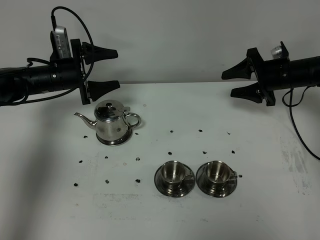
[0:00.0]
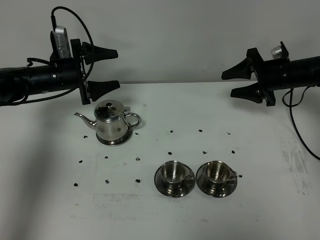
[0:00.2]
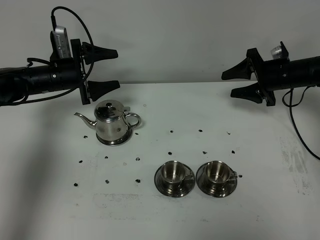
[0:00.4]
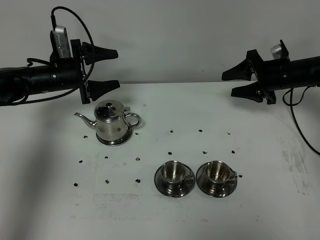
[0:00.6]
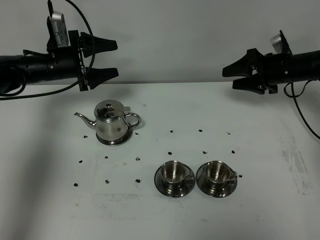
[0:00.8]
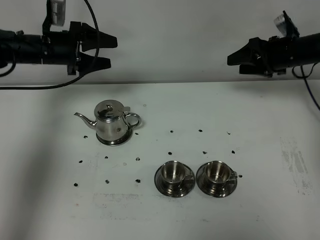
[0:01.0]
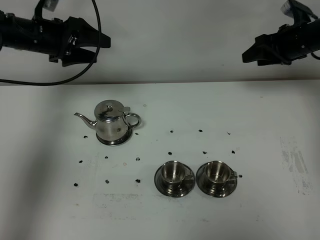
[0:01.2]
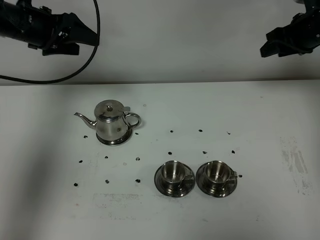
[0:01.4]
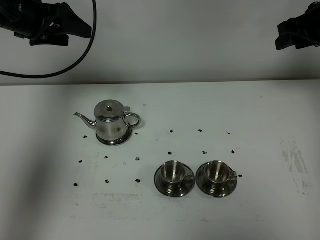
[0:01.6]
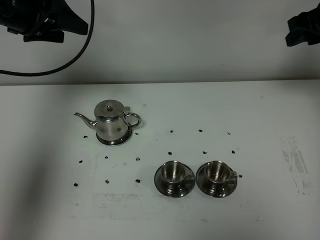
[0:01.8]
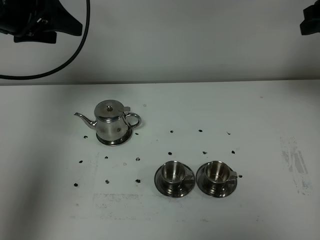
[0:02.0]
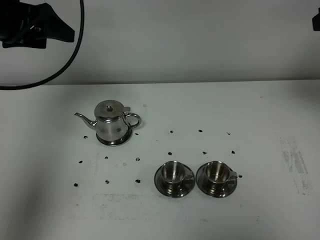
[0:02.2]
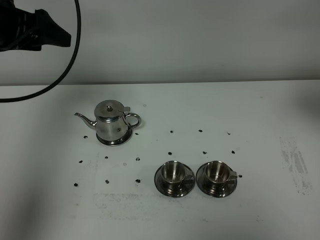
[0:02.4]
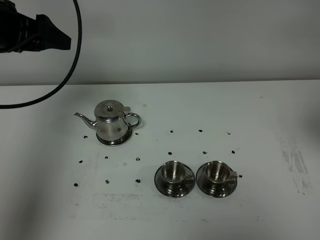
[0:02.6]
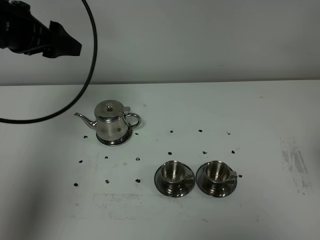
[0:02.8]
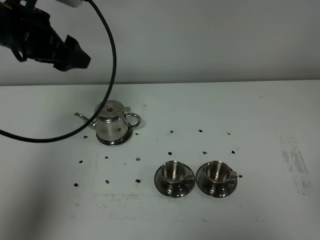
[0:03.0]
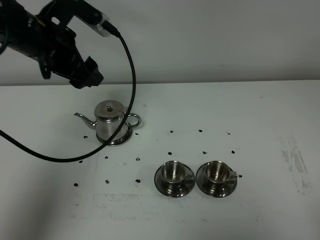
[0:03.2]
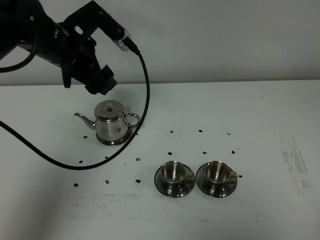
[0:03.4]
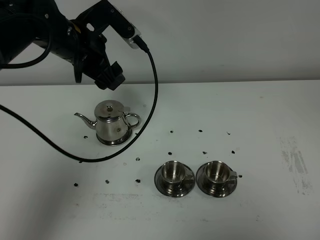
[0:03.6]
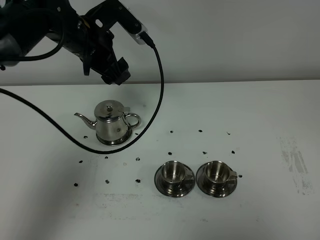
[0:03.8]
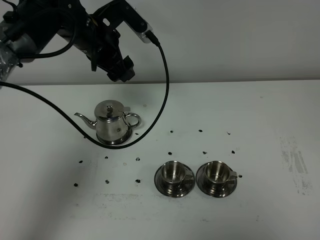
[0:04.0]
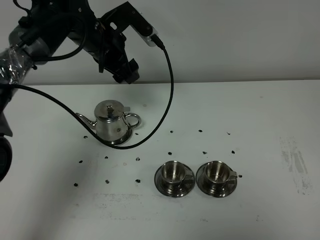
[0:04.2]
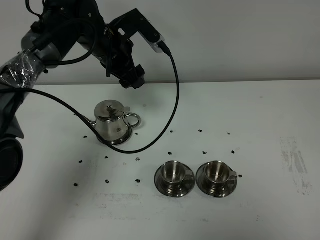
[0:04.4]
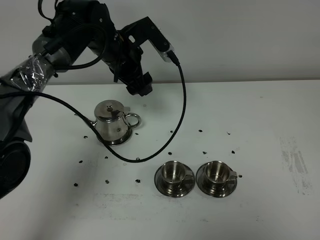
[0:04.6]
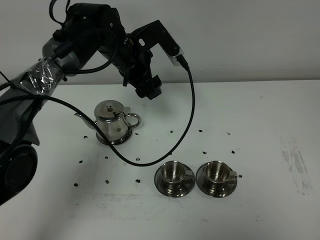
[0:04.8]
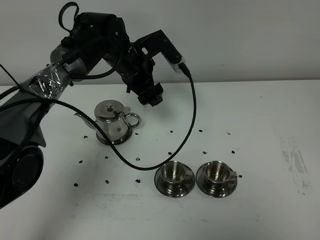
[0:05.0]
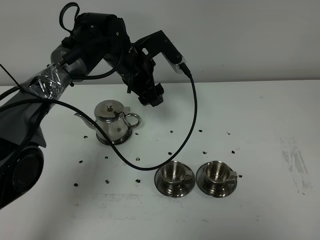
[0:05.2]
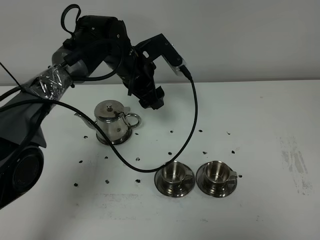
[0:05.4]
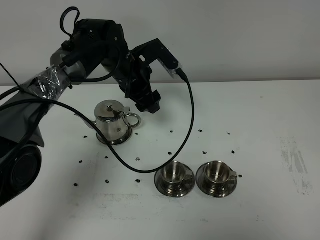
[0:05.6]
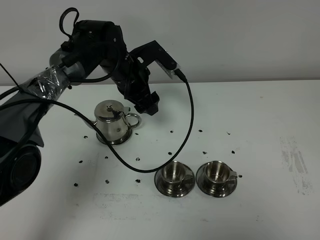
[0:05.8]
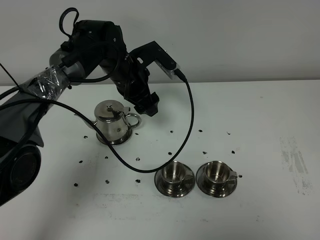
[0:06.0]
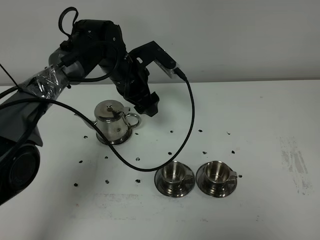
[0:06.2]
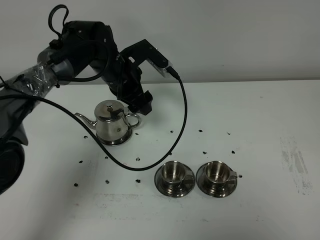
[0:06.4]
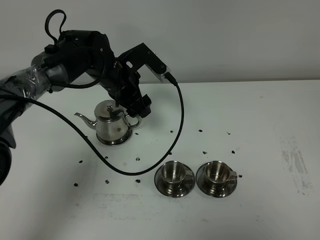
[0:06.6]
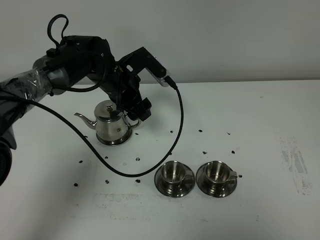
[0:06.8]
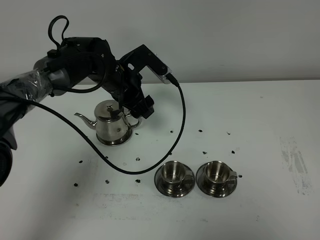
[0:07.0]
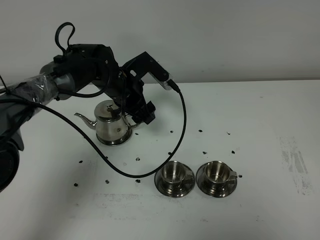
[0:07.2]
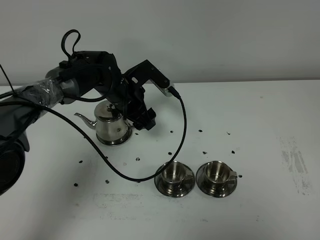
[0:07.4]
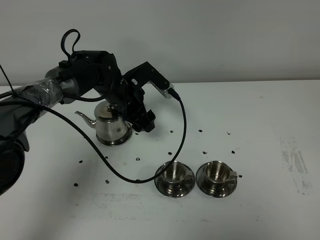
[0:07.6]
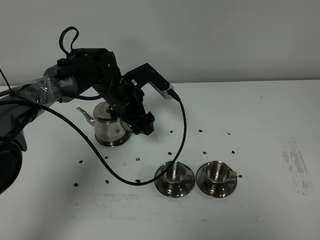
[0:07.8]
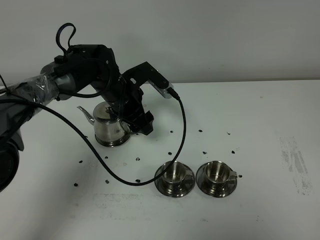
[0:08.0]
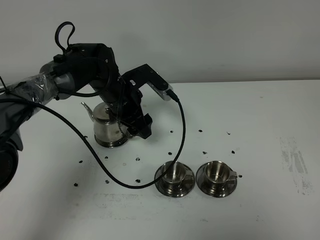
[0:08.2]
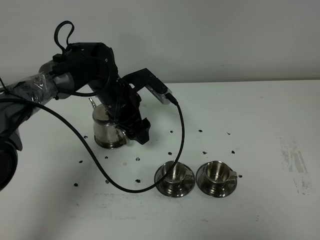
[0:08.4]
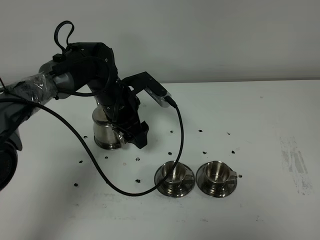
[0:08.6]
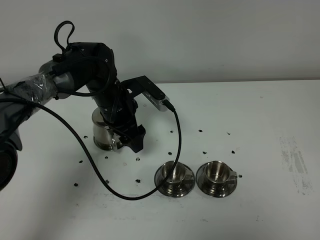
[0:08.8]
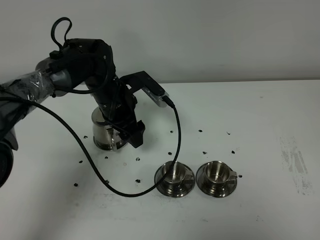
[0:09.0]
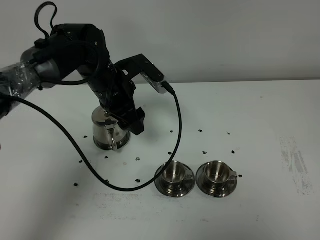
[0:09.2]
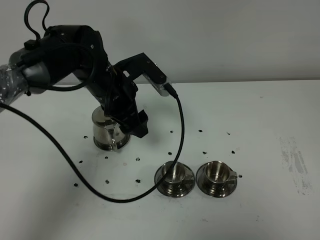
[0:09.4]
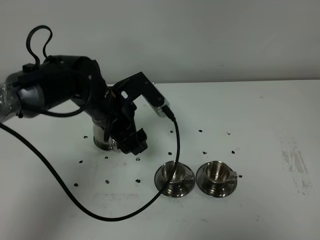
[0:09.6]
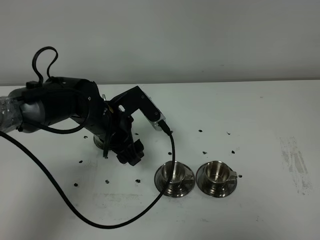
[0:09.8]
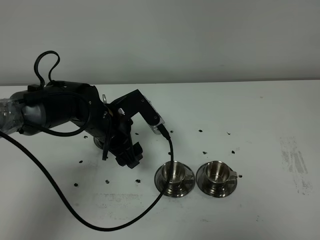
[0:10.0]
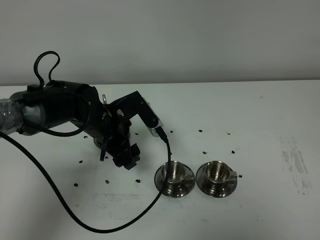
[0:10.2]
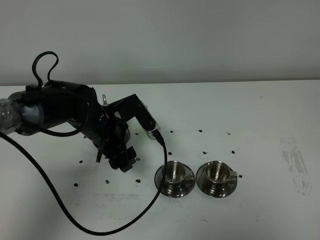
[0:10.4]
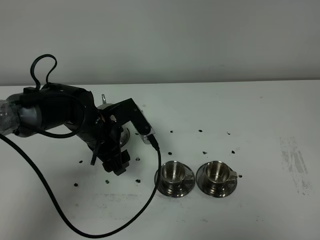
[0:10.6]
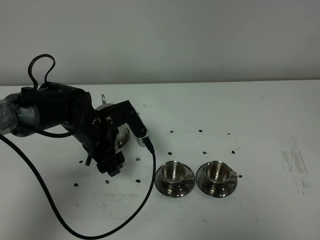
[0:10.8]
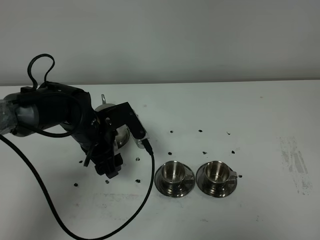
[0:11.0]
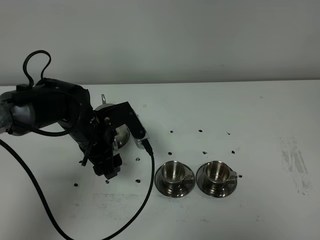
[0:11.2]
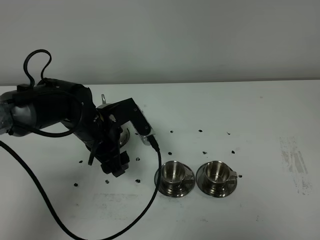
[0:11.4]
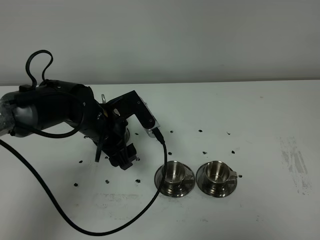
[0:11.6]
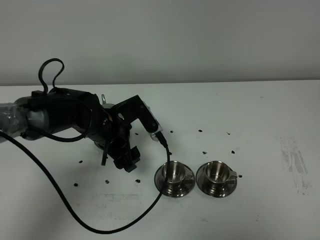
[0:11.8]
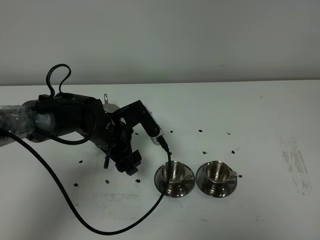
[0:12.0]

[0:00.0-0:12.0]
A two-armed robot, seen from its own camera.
Task of the whole recording: grasp the stainless steel teapot and pour the tea into the two stainless steel teacups one by one, put the stainless steel teapot back in its original place.
0:00.0 to 0:01.6: Both grippers travel together upward, approximately 15 cm.
0:01.6 to 0:03.0: The left gripper goes about 10 cm backward; the right gripper is displaced backward by roughly 40 cm.
0:03.0 to 0:04.4: The left gripper heads to the right, forward and downward, covering some 15 cm. Meanwhile the right gripper is displaced downward by roughly 15 cm.
0:04.4 to 0:06.0: The right gripper closes. Meanwhile the left gripper is displaced downward by approximately 5 cm.
0:06.0 to 0:07.6: The left gripper shifts by about 5 cm.
0:07.6 to 0:09.0: The grippers make only small movements.
0:09.0 to 0:10.4: The left gripper travels backward by roughly 5 cm.
0:10.4 to 0:12.0: The grippers stay close to where they were, moving slightly.

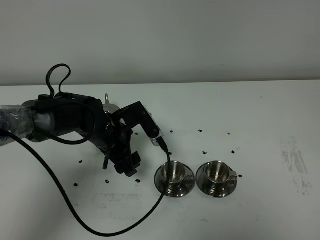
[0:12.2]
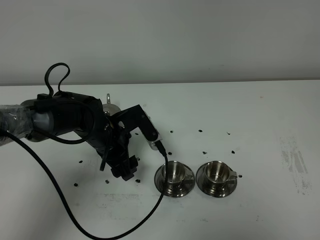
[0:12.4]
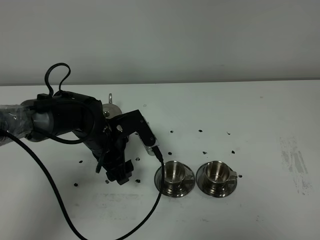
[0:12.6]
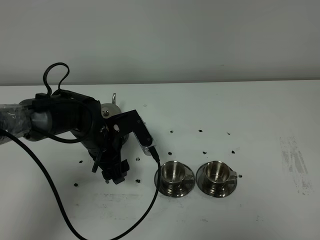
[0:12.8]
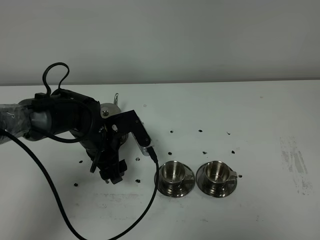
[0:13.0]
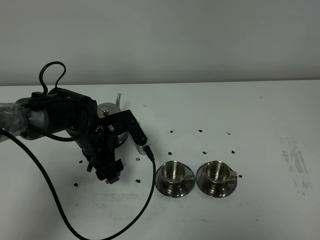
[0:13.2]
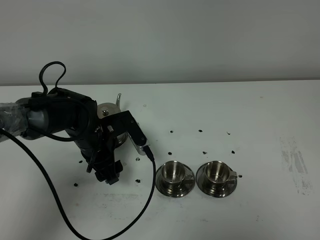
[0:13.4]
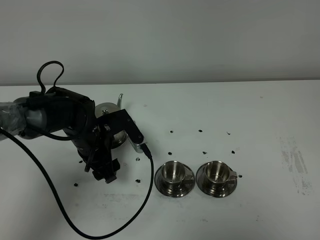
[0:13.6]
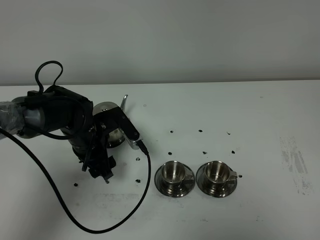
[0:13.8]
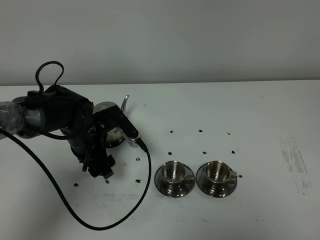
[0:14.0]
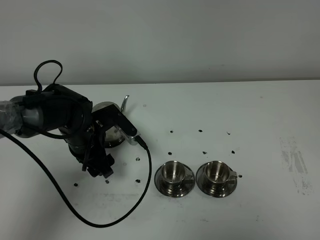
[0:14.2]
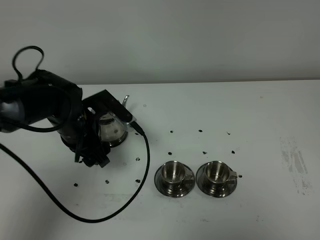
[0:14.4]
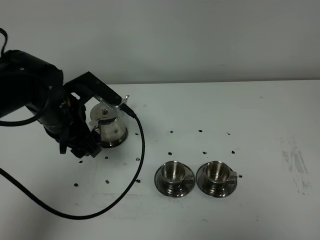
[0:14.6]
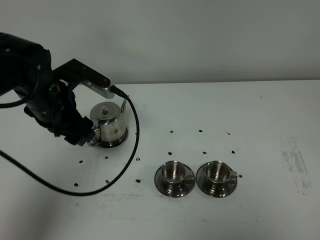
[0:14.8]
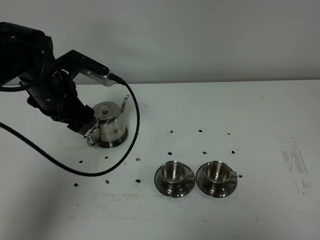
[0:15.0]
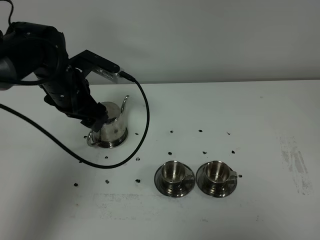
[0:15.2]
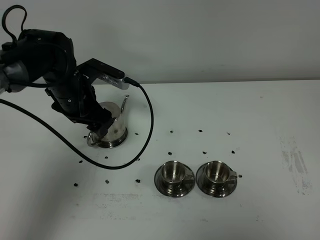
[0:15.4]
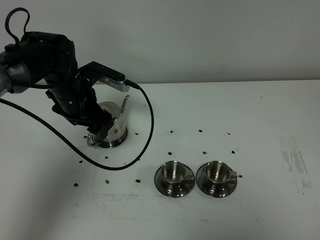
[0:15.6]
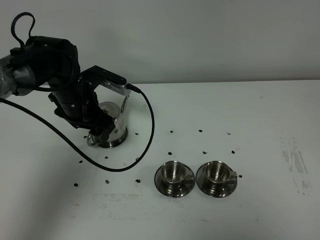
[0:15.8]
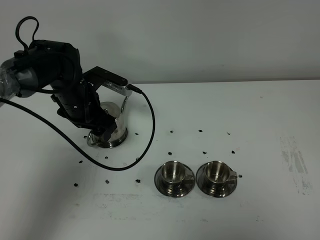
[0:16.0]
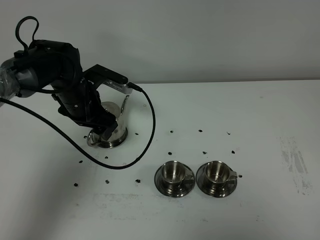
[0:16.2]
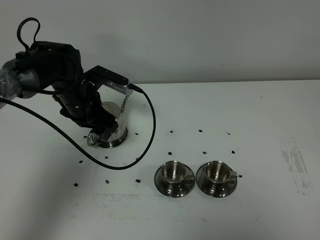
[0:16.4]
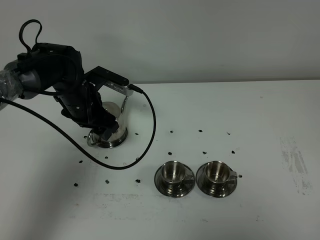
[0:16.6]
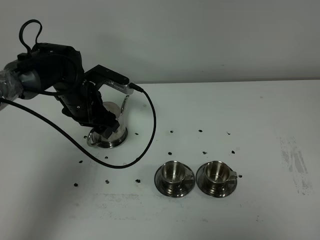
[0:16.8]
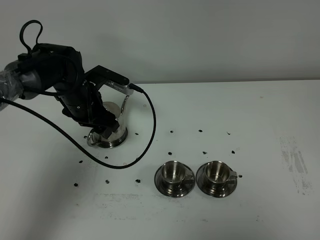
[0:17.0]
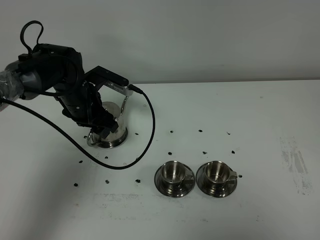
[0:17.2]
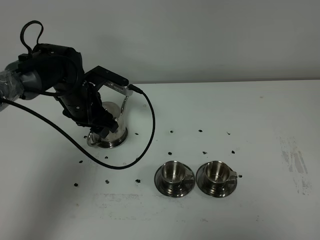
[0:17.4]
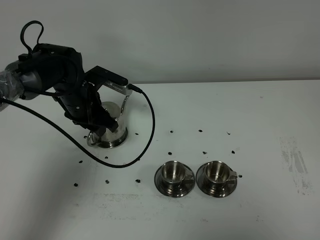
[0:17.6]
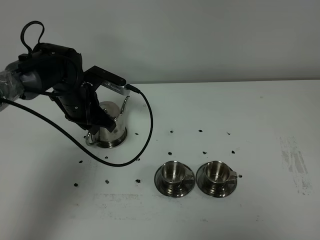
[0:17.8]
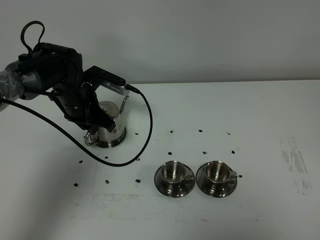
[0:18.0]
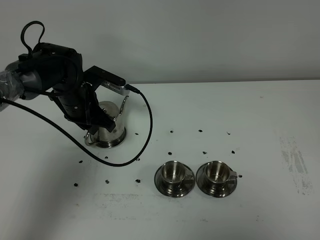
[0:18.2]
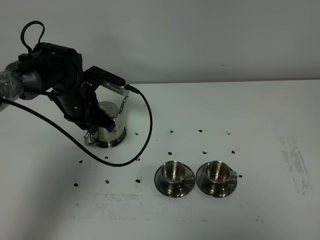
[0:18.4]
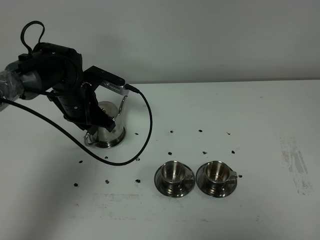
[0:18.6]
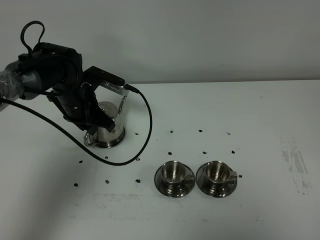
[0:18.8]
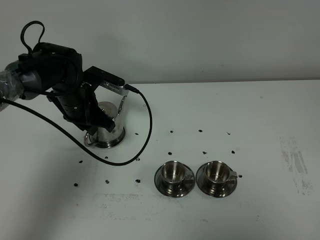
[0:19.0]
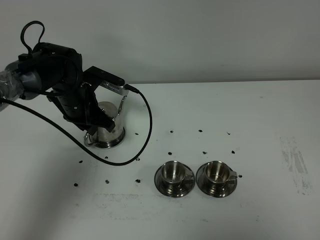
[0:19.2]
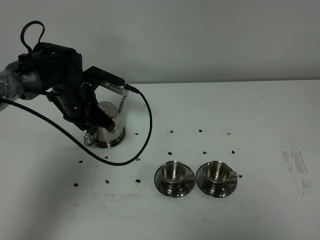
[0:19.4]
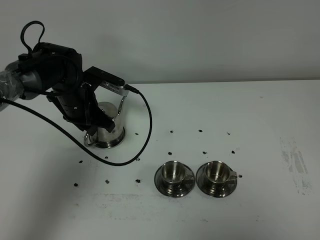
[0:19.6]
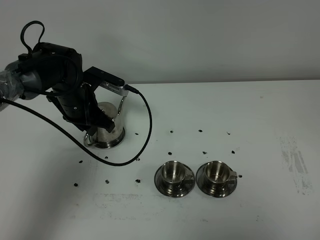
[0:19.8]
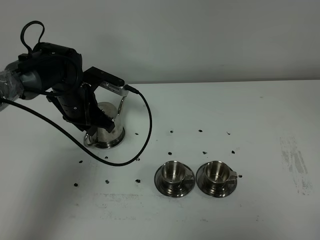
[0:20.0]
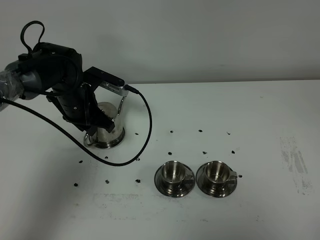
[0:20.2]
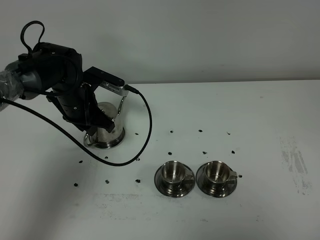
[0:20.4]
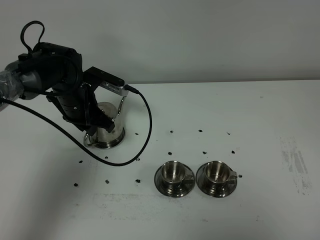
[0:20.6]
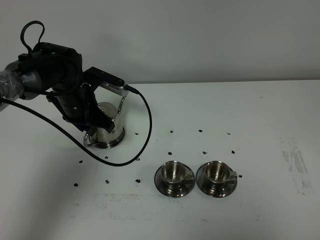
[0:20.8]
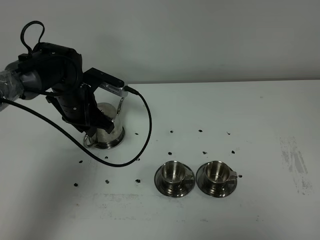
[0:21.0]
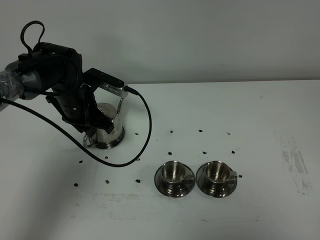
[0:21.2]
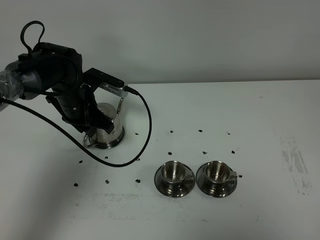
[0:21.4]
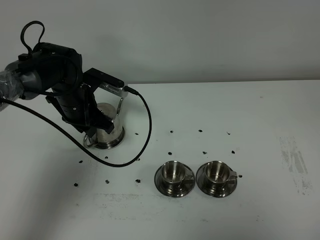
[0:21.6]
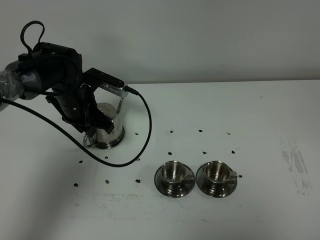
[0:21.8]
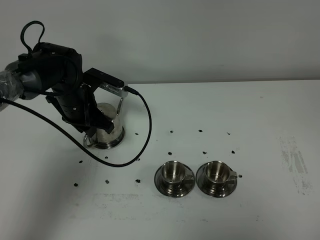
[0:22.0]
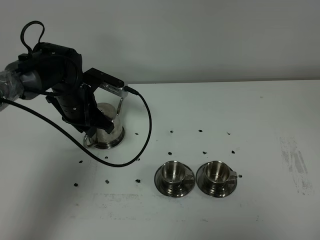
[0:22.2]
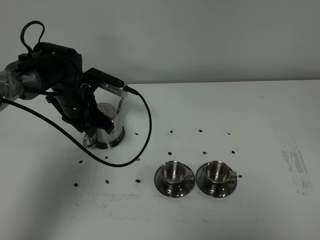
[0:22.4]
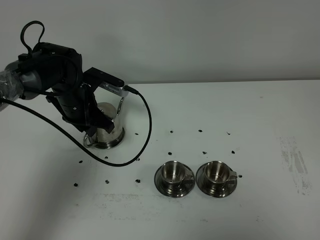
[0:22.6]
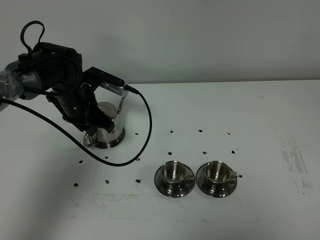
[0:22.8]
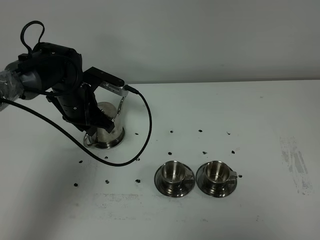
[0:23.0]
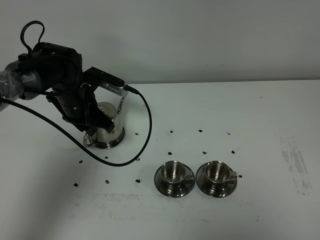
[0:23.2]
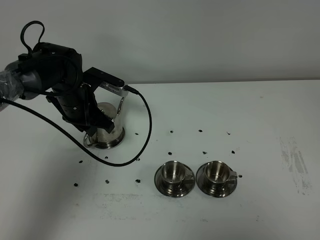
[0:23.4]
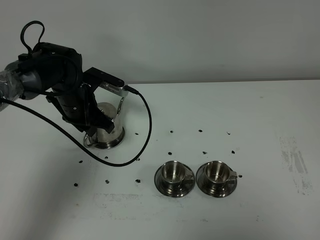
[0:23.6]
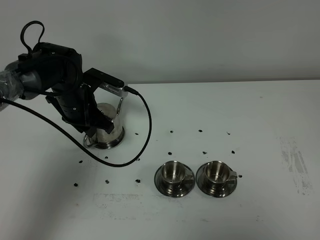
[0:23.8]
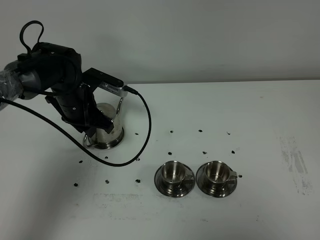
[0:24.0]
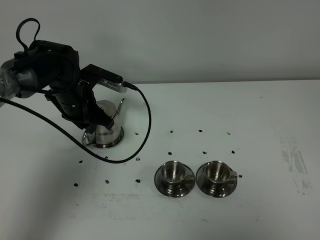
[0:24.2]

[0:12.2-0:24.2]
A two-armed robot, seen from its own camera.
Task of the whole recording: grasp the stainless steel teapot and pour the tea into the two stainless steel teacups one by one, put the stainless steel teapot back in its original place.
0:12.2 to 0:13.8: The grippers stay close to where they were, moving slightly.
0:13.8 to 0:15.2: The left gripper shifts about 10 cm upward.
0:15.2 to 0:16.6: The left gripper changes place by some 5 cm.
0:16.6 to 0:18.2: The left gripper closes up.
0:18.2 to 0:19.8: The grippers make only small movements.
0:19.8 to 0:21.2: There are only small adjustments of the grippers.
0:22.6 to 0:24.2: Both grippers stay about where they are.
